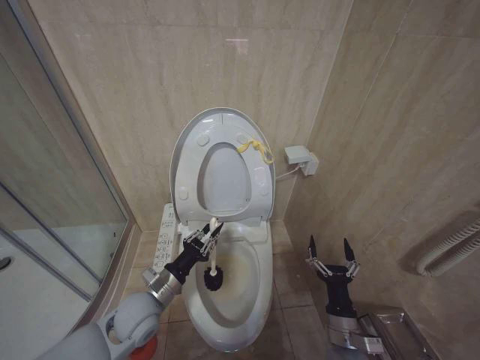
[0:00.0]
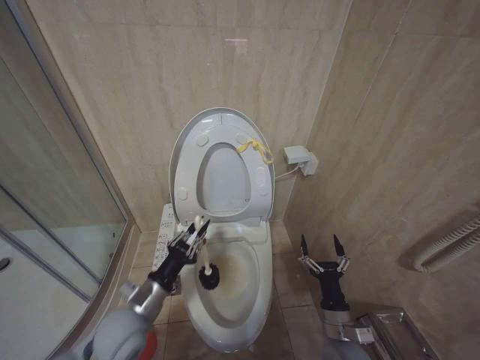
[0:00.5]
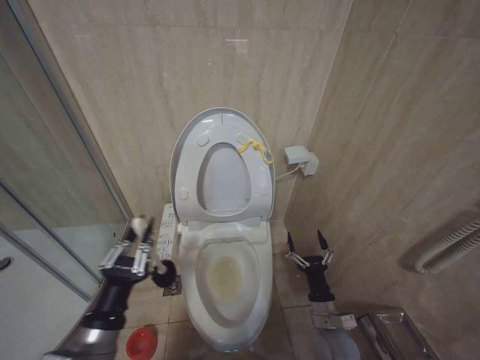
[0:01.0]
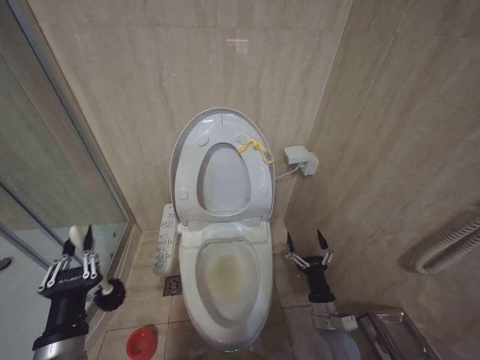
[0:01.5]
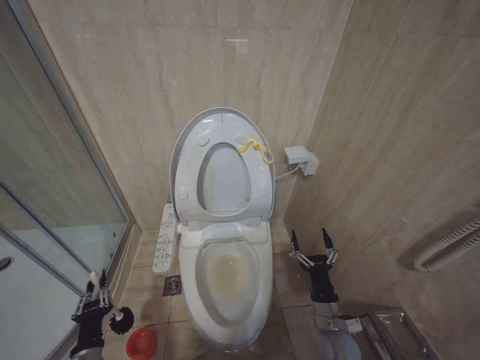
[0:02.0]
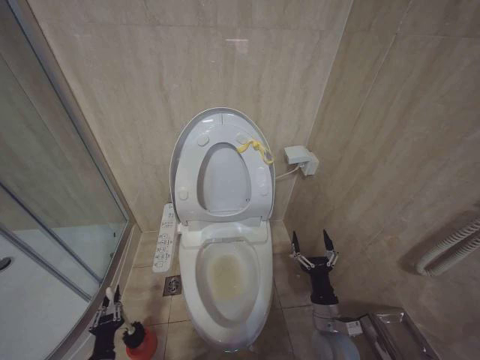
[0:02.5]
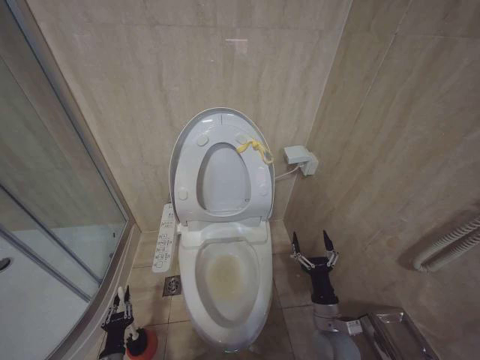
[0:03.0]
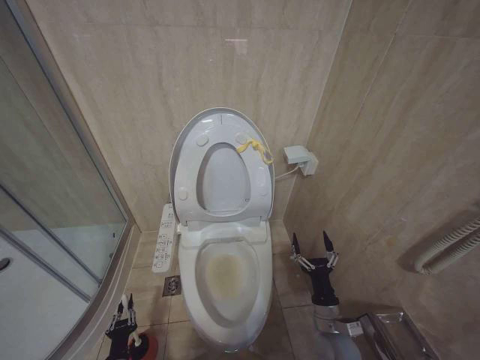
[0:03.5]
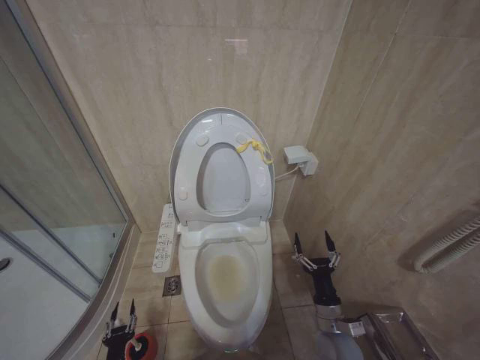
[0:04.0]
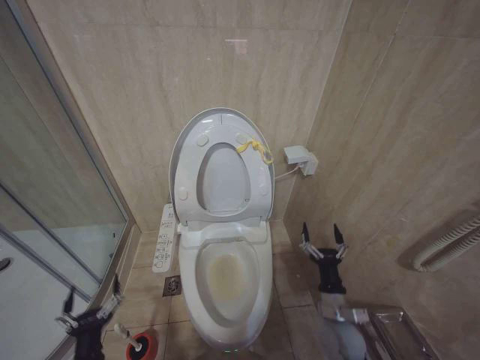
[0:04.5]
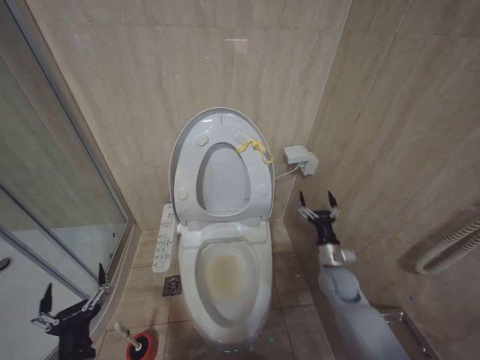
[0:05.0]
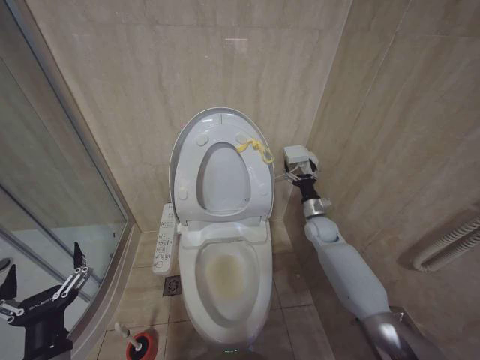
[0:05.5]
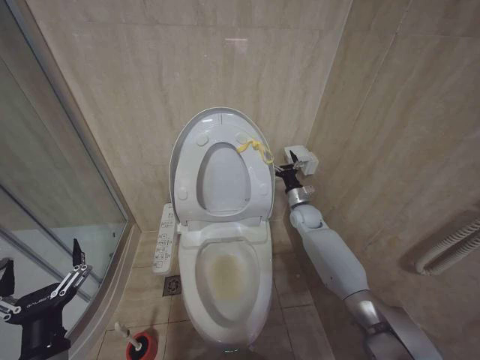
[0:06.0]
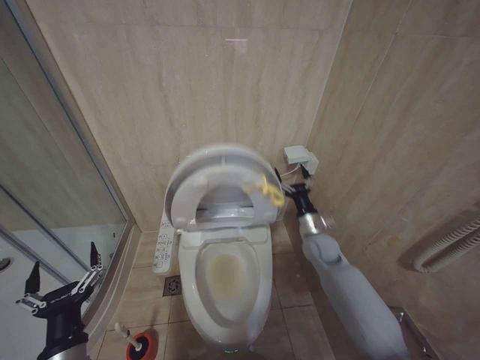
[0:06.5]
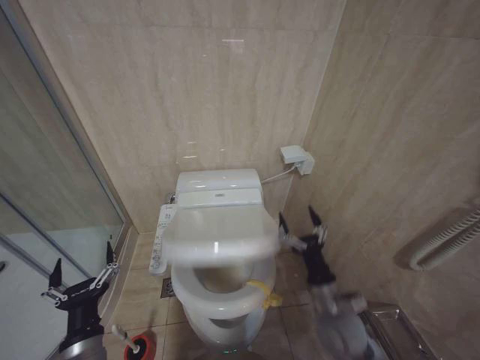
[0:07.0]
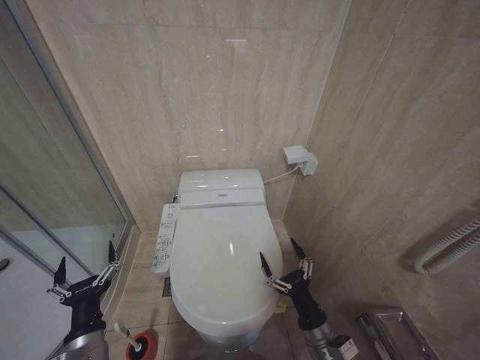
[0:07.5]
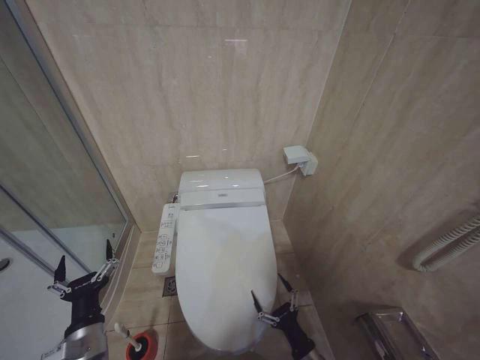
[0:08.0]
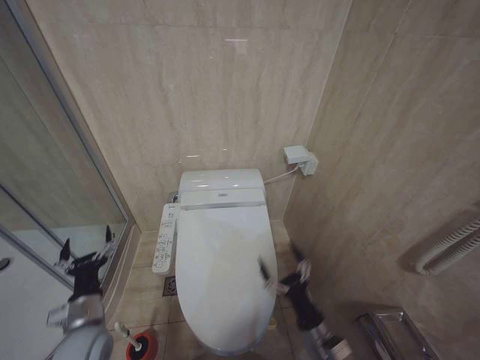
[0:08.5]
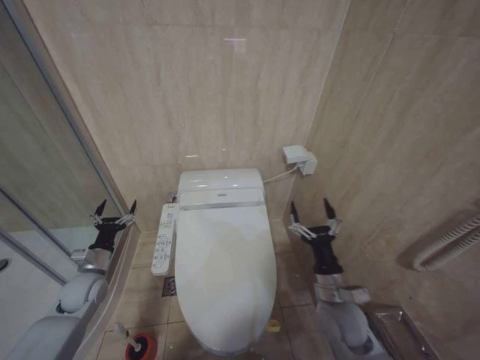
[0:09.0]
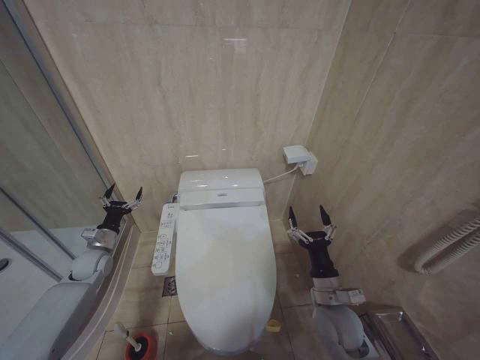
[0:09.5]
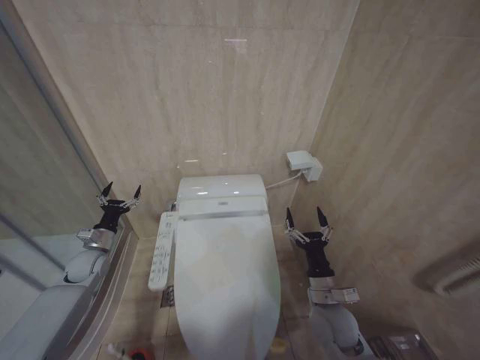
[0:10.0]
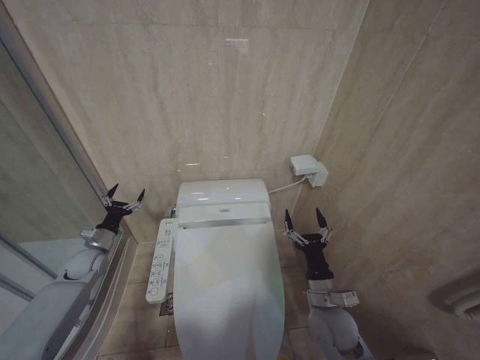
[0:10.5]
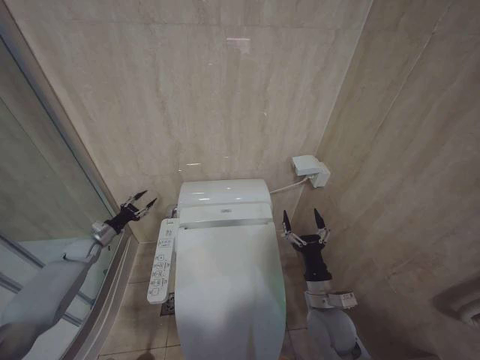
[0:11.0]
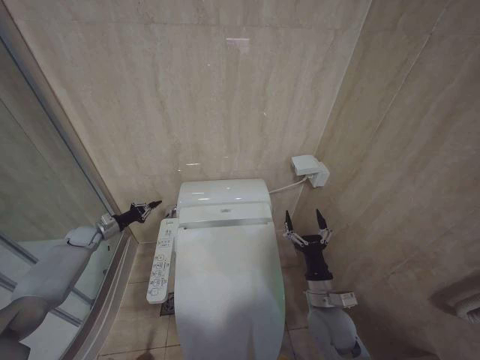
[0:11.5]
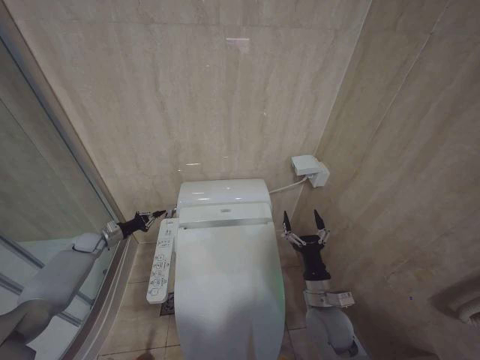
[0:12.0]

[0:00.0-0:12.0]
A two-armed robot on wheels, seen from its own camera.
Task of the whole recording: Open the toilet lid, clean the toilet bowl with a toilet brush, close the toilet lid, and flush.
0:00.0 to 0:02.0: The left gripper goes about 20 cm backward, downward and to the left.
0:02.0 to 0:04.0: The left gripper moves downward, roughly 15 cm.
0:04.0 to 0:06.0: The right gripper travels forward and upward by some 35 cm. The left gripper shifts approximately 35 cm upward, and opens.
0:06.0 to 0:08.0: The right gripper is displaced backward and downward by some 40 cm; the left gripper travels downward and forward by some 10 cm.
0:08.0 to 0:10.0: The left gripper is displaced forward and to the left by roughly 30 cm. The right gripper goes approximately 15 cm upward and forward.
0:10.0 to 0:12.0: The left gripper goes about 10 cm forward and to the left, and closes up.

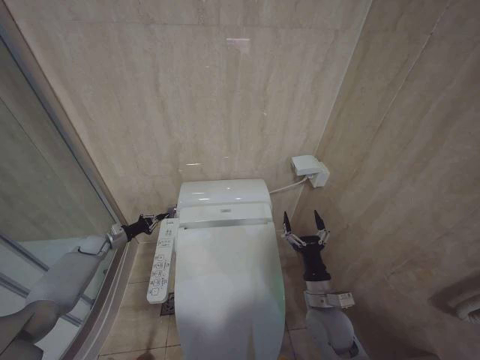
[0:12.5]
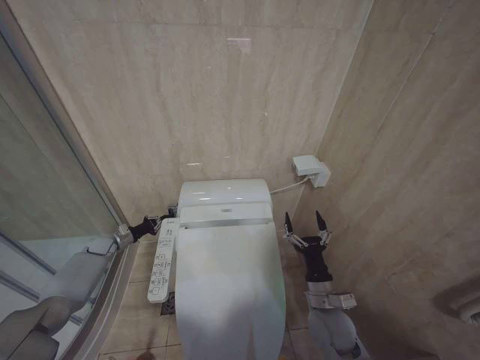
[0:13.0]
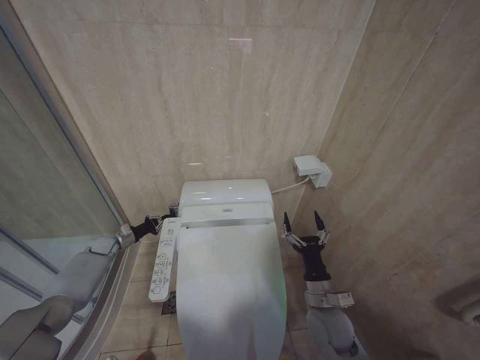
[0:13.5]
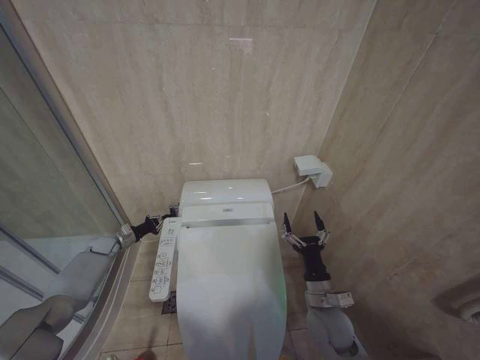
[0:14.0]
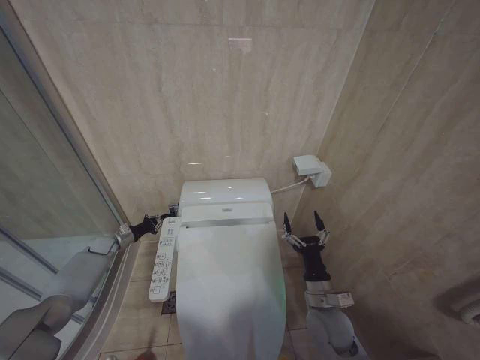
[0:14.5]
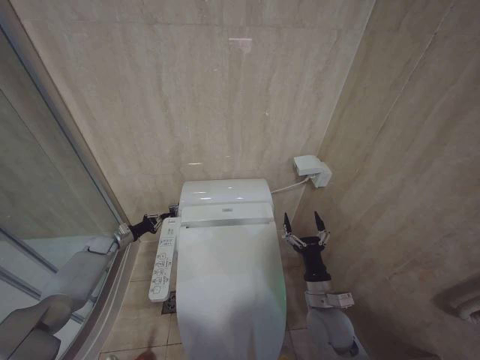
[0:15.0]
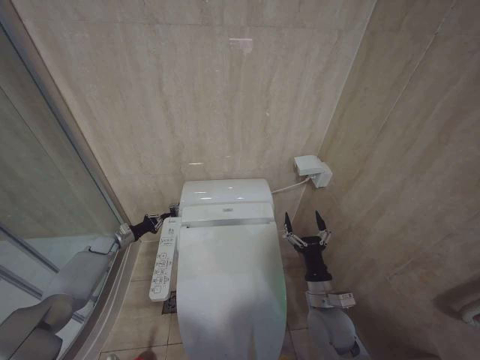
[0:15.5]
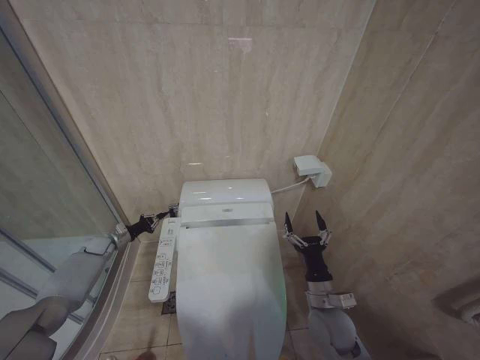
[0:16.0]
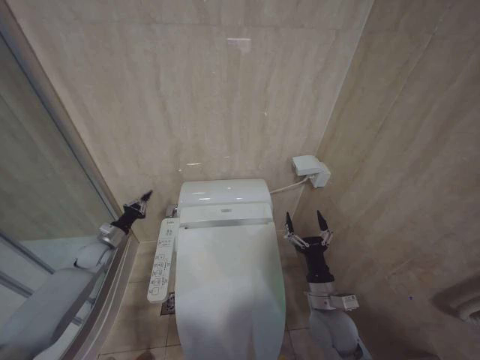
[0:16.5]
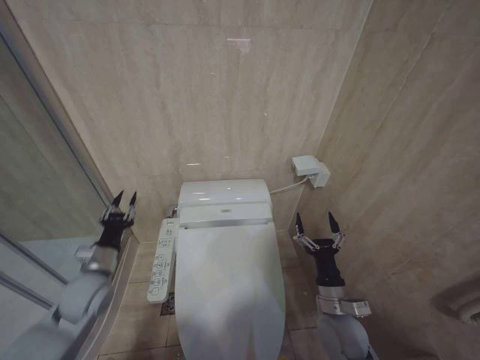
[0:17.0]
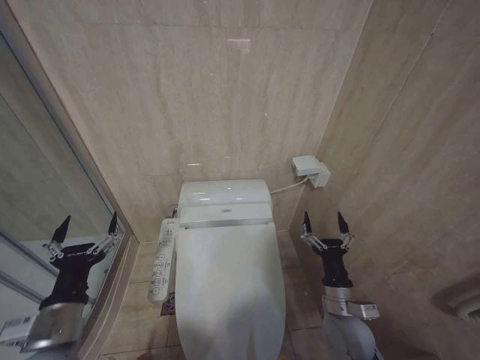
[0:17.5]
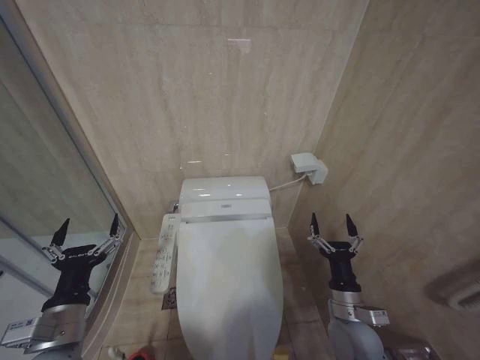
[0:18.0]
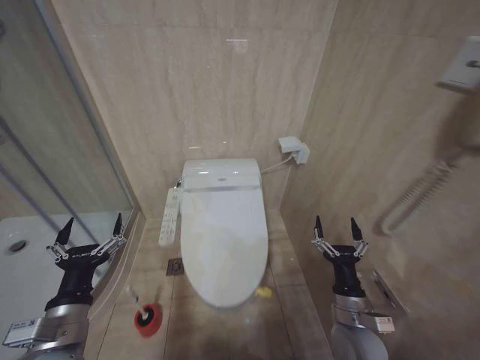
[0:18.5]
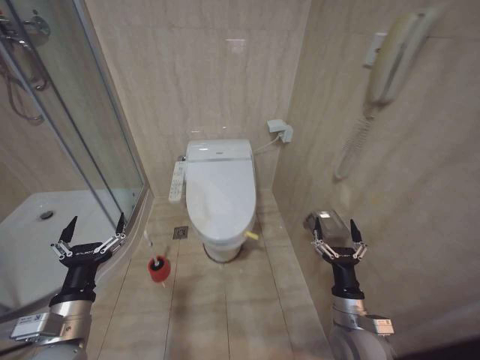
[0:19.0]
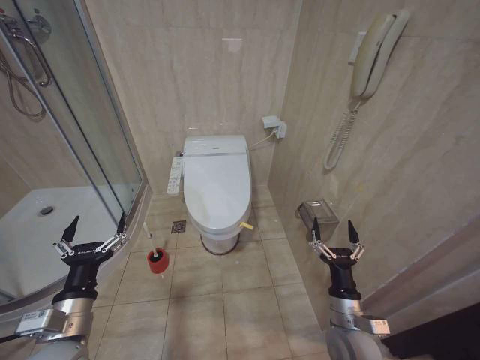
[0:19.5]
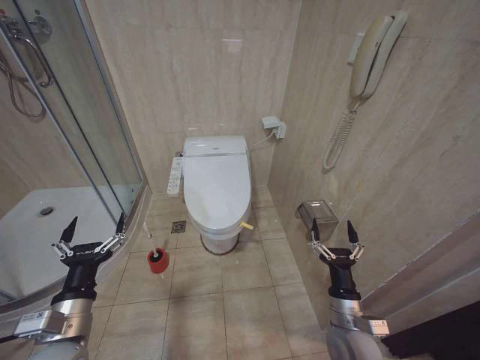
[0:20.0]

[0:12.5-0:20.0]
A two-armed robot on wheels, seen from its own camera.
Task of the whole recording: Open the toilet lid, clean the toilet bowl with a toilet brush, close the toilet lid, and flush.
0:12.5 to 0:14.5: The grippers make only small movements.
0:16.5 to 0:18.0: The left gripper goes approximately 40 cm backward, to the right and upward, and opens.
